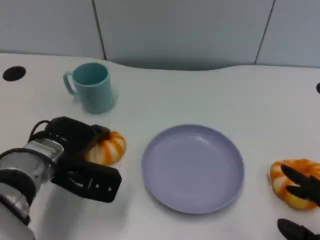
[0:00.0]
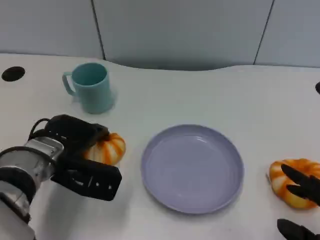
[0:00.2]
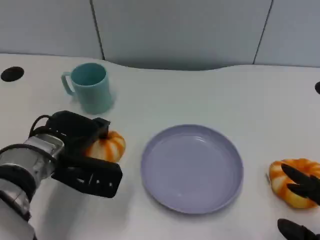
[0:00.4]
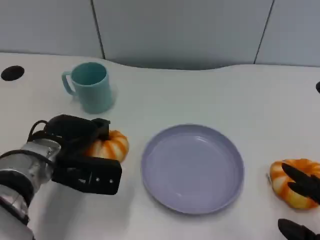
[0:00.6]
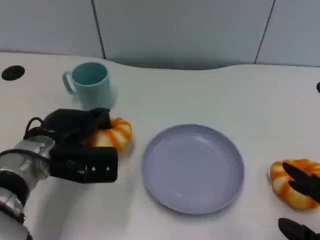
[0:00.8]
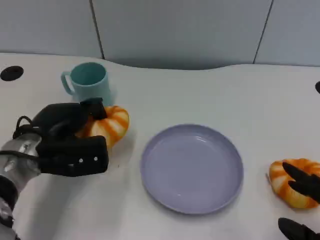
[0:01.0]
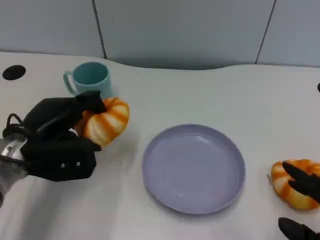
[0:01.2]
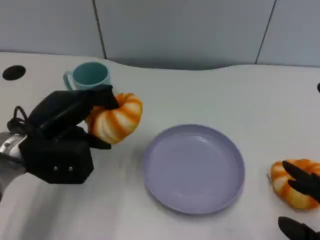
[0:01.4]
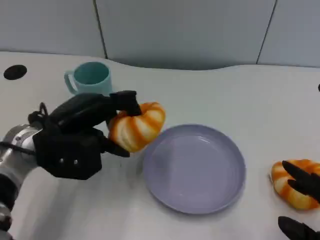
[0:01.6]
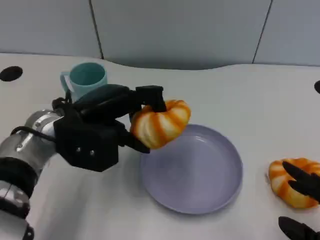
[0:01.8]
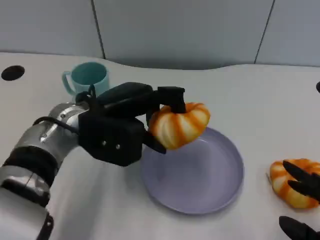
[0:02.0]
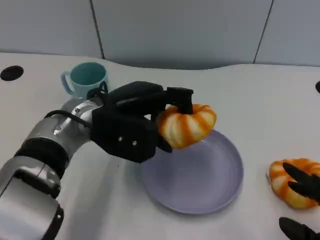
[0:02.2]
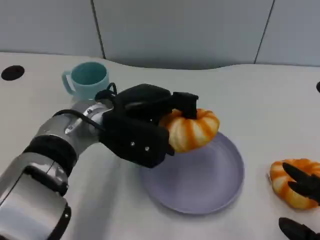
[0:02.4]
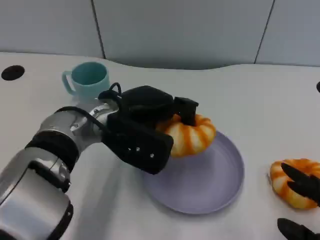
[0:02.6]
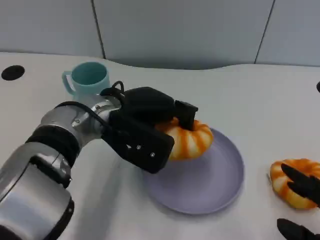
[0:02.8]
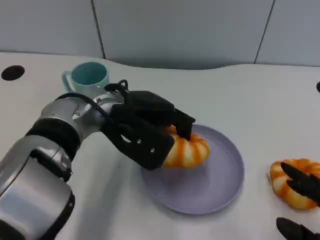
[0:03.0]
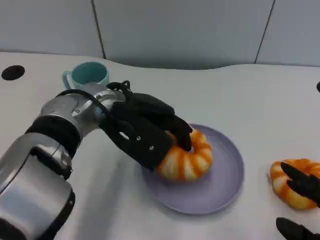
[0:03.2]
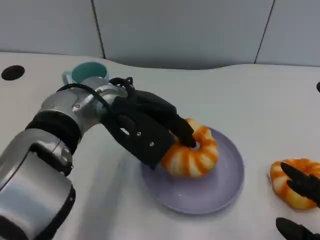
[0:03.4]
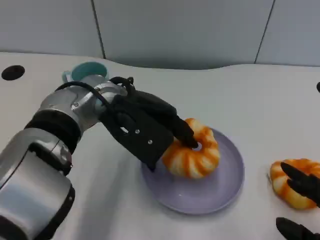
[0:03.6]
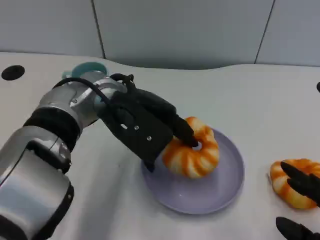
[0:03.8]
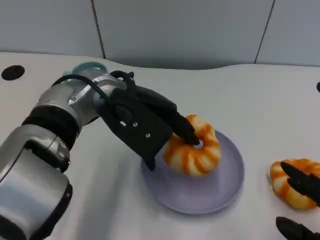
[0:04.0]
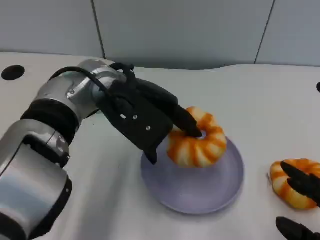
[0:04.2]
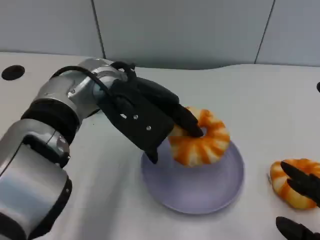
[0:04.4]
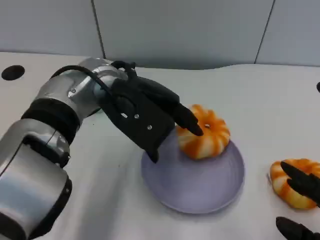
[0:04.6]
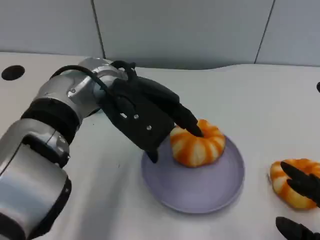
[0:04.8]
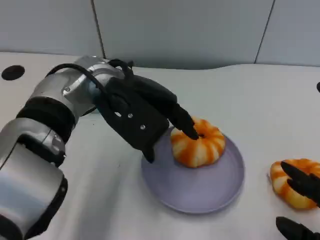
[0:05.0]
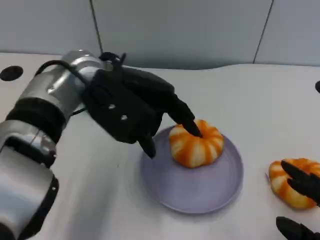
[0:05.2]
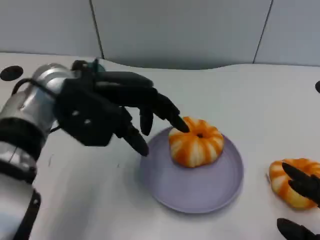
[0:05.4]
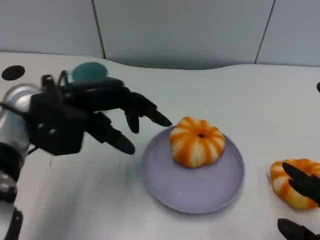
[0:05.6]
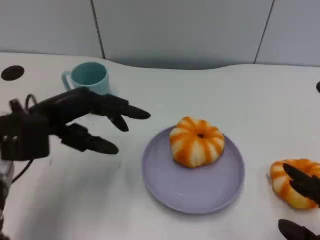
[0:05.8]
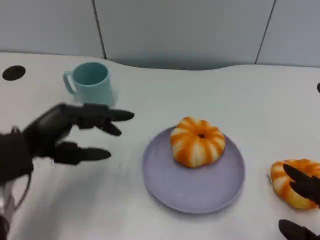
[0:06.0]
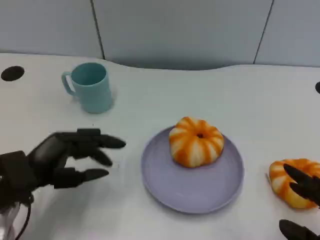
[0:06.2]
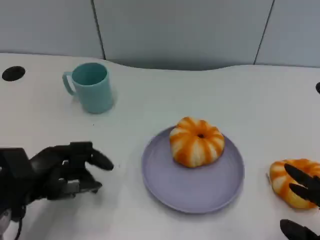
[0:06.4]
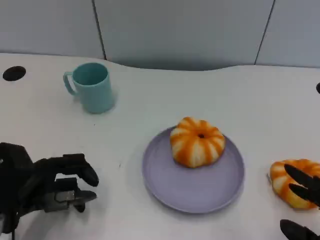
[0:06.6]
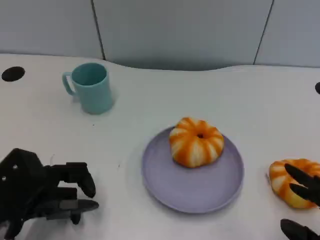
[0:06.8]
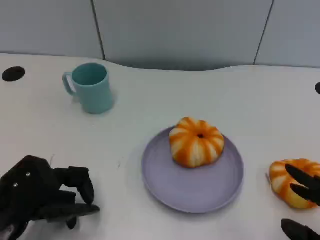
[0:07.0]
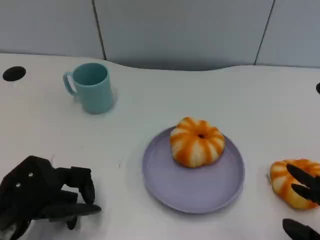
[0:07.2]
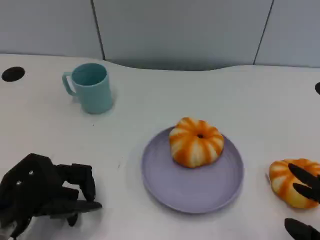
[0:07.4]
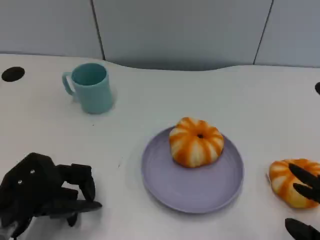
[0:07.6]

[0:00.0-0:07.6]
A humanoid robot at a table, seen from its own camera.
Task of the whole recording: Grasp the bread from the table and place it into the plate.
0:00.0 to 0:01.6: The left hand is displaced upward by approximately 5 cm.
0:01.6 to 0:03.0: The left hand heads to the right, covering some 10 cm.
0:04.6 to 0:06.0: The left hand shifts approximately 20 cm to the left, downward and backward.
0:06.0 to 0:07.6: The left hand moves some 5 cm.

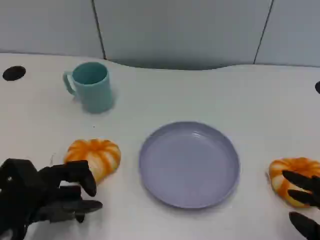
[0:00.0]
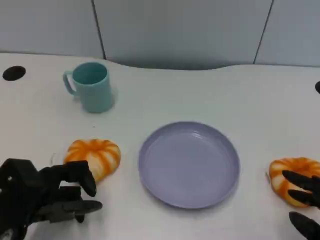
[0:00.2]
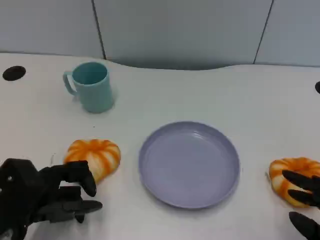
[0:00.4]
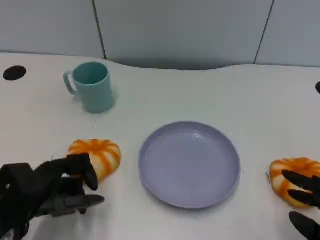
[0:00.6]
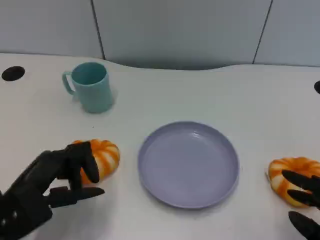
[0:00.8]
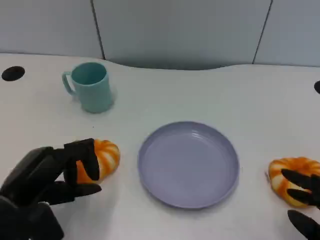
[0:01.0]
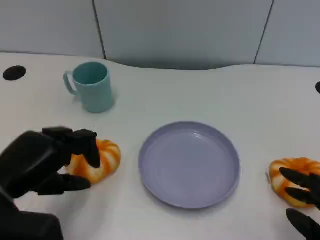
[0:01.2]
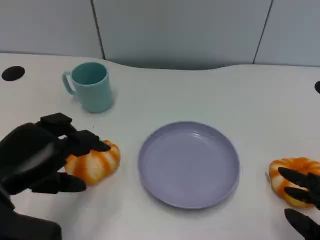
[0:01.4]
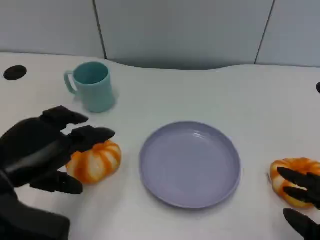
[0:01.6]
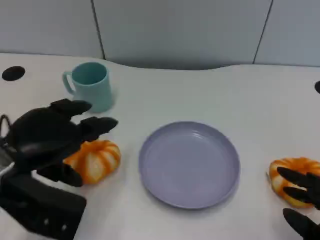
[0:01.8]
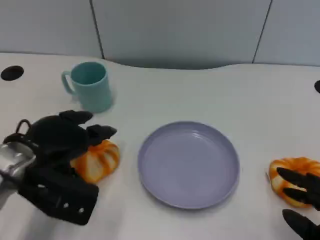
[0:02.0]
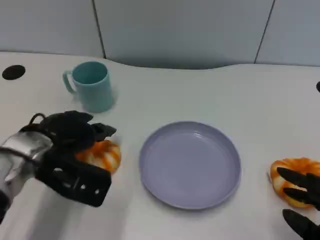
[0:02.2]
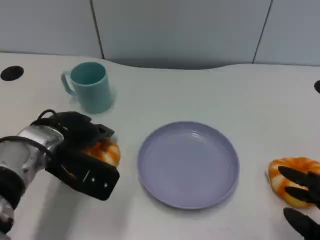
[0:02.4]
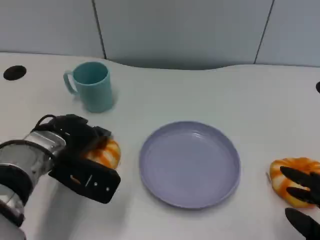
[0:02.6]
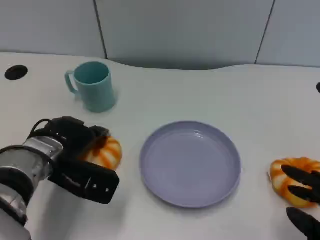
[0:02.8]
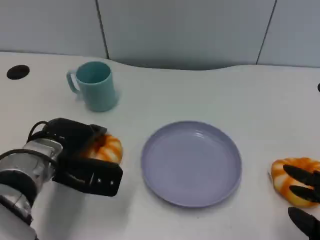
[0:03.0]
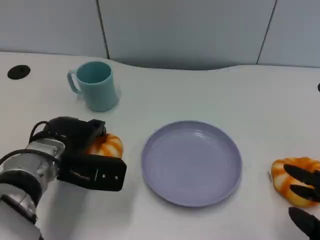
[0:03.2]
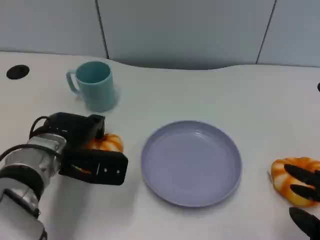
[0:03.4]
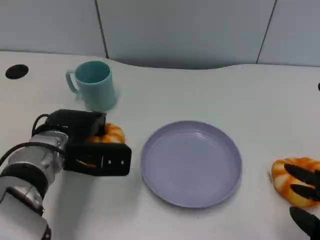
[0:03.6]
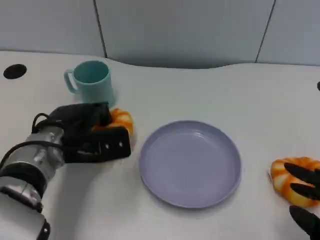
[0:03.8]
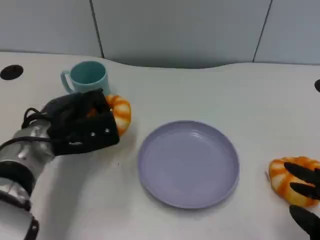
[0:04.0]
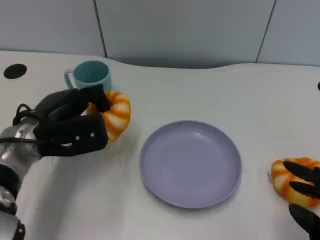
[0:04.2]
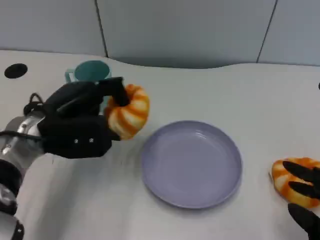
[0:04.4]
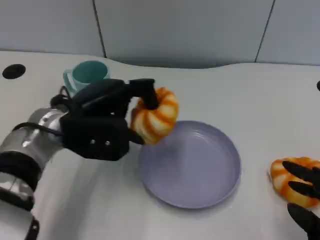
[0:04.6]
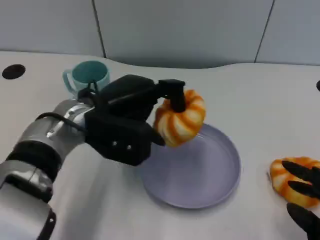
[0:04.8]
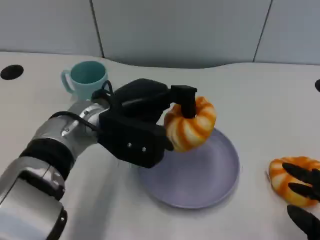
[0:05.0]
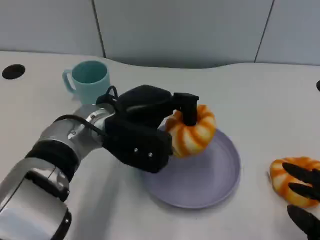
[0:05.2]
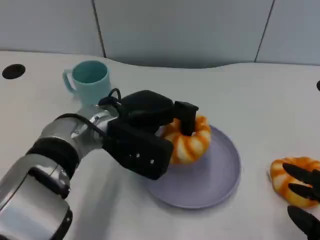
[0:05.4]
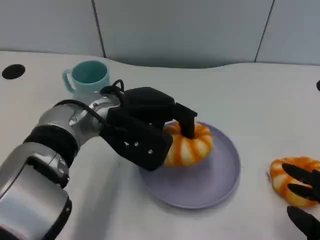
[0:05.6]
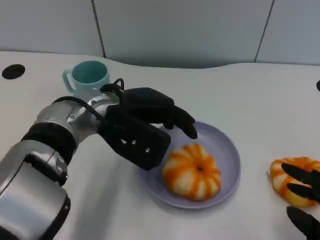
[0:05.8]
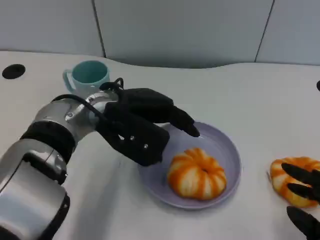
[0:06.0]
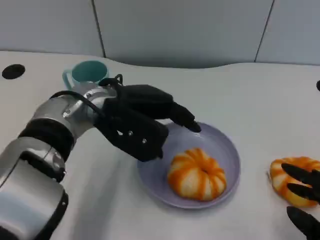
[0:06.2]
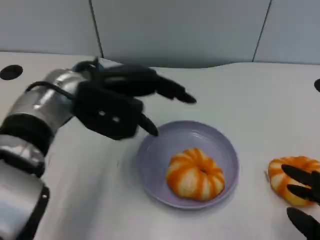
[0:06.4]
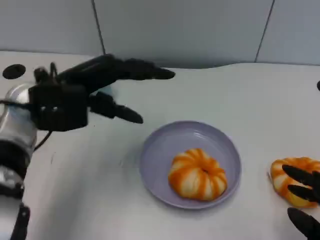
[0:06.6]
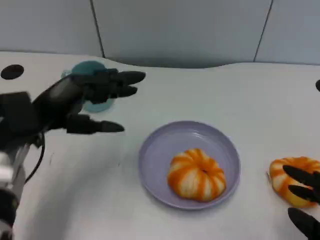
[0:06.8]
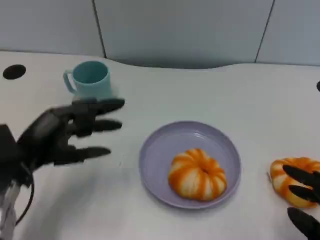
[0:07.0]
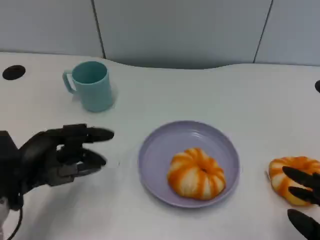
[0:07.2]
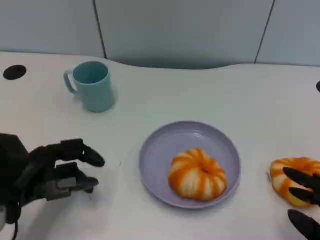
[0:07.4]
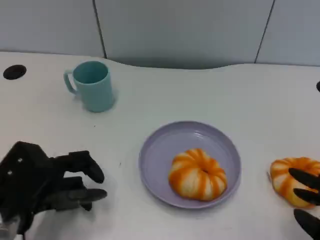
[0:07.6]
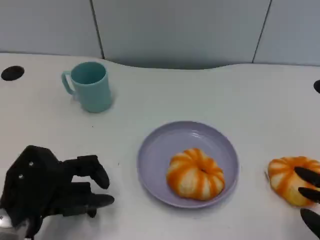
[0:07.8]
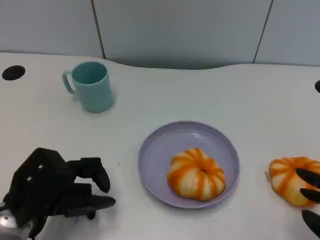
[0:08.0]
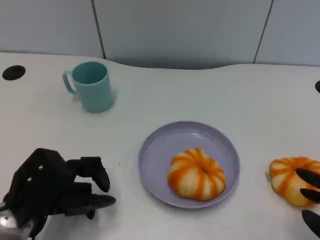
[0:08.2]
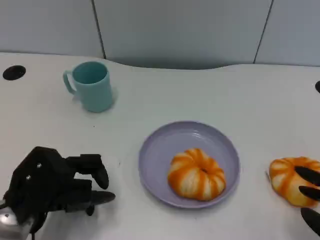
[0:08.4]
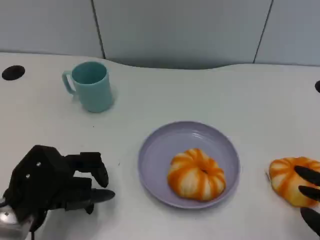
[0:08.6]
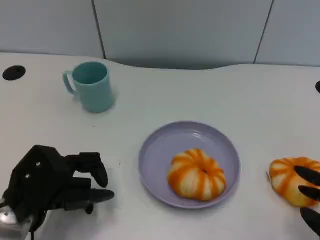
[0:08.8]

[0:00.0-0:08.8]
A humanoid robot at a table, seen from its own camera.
Task of the whole recording: Grasp the bread from the table and place it into the plate.
0:00.0 to 0:01.4: The left hand heads upward, covering approximately 5 cm.
0:01.4 to 0:03.0: The left hand goes approximately 15 cm forward, to the right and downward.
0:03.0 to 0:04.4: The left hand shifts about 5 cm upward.
0:04.4 to 0:05.8: The left hand heads to the right, covering some 10 cm.
0:05.8 to 0:07.4: The left hand heads to the left, backward and downward, covering approximately 20 cm.
0:07.4 to 0:08.8: The hands move only a little.

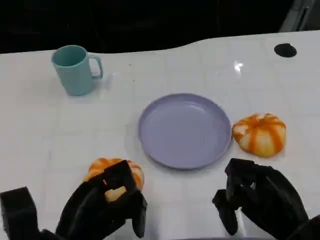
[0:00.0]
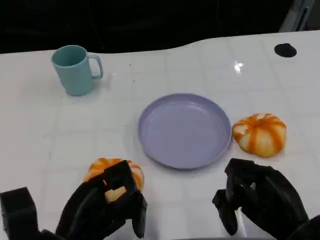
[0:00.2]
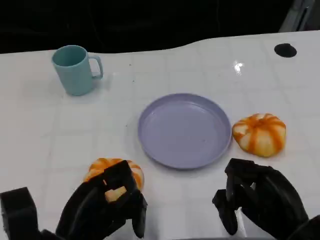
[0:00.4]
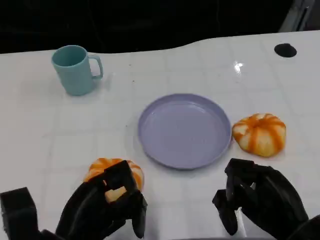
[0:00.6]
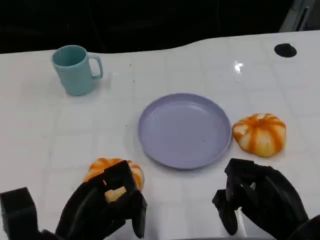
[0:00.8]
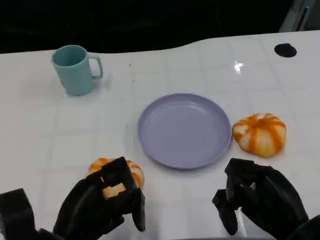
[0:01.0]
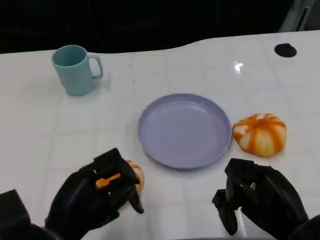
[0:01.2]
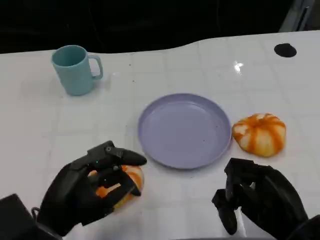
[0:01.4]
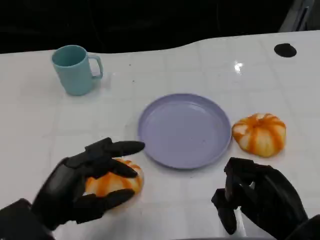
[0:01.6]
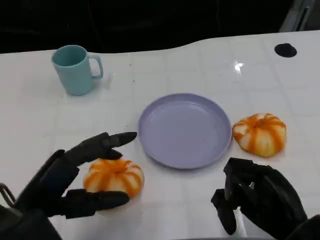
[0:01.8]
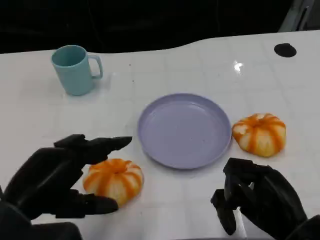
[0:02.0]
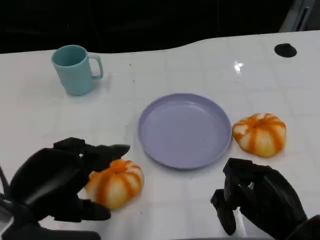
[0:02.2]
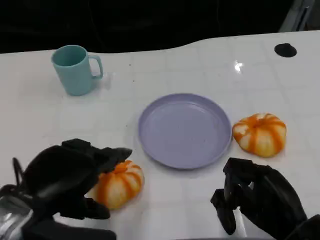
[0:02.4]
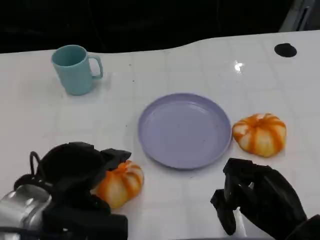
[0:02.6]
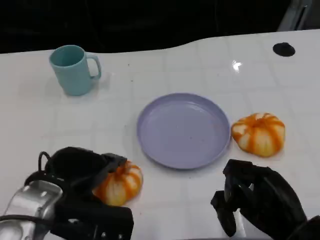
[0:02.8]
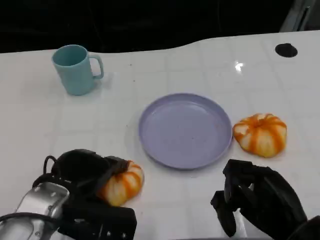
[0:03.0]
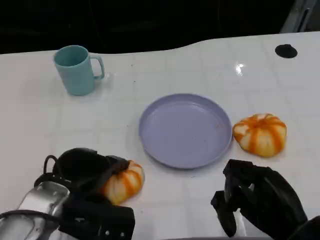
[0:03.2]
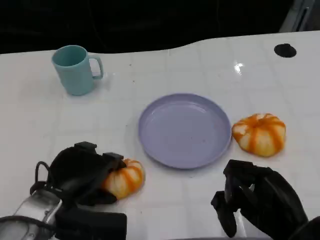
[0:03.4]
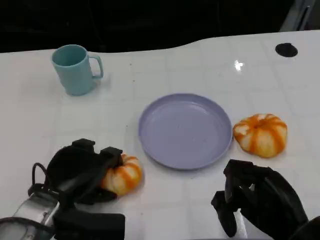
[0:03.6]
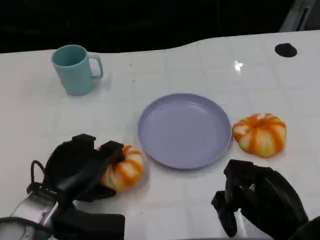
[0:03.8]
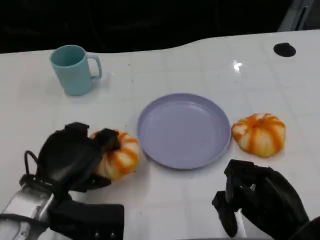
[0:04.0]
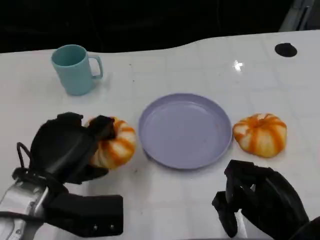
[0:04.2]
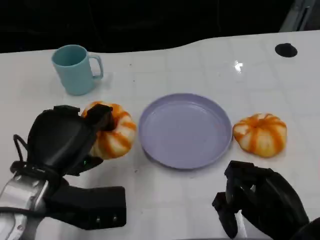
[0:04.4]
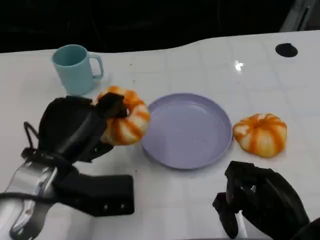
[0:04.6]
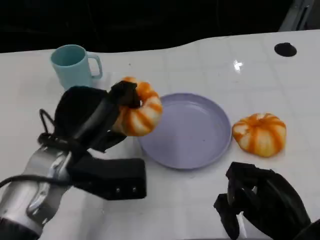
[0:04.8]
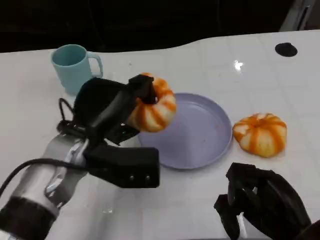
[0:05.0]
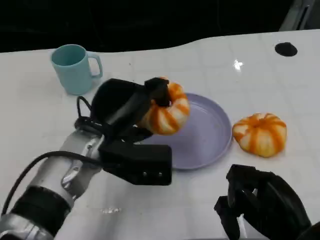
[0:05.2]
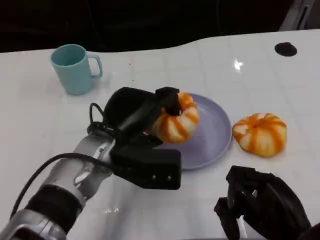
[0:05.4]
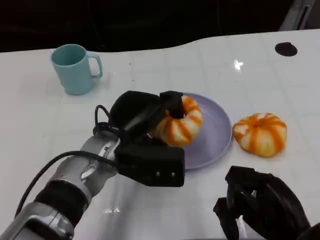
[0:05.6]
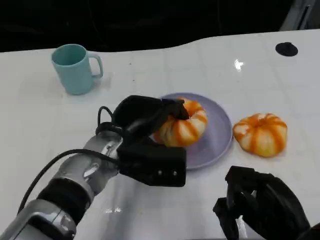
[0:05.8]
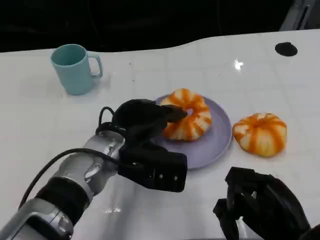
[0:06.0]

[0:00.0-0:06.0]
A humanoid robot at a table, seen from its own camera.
Task of the whole recording: Grasp the bread from the table and place it into the plate.
0:01.6 to 0:03.0: The left hand shifts about 5 cm forward.
0:04.4 to 0:06.0: The left hand goes about 10 cm to the right and forward.
